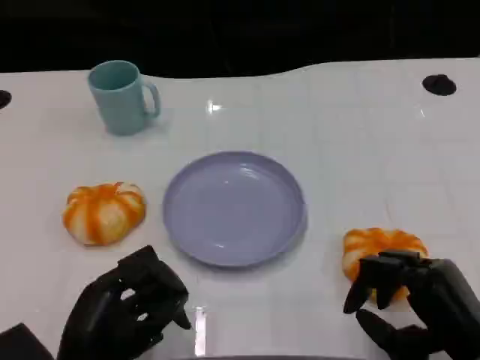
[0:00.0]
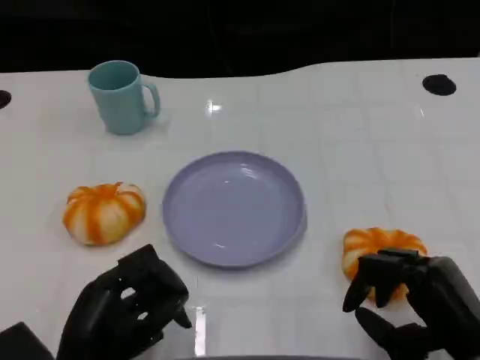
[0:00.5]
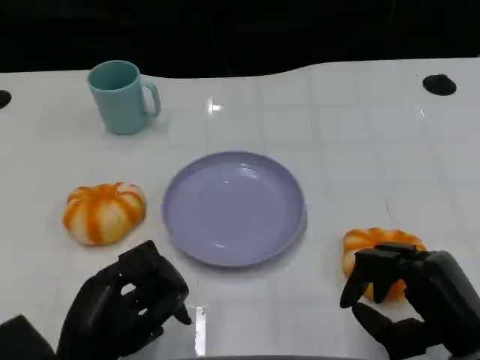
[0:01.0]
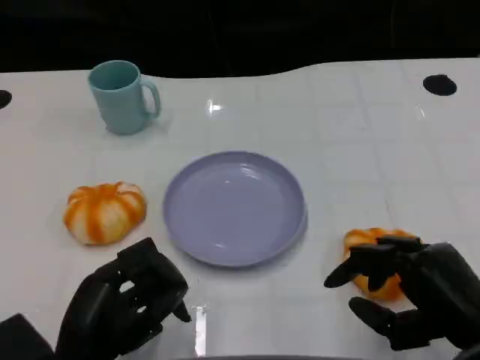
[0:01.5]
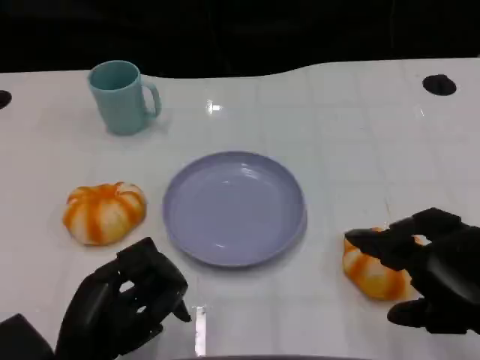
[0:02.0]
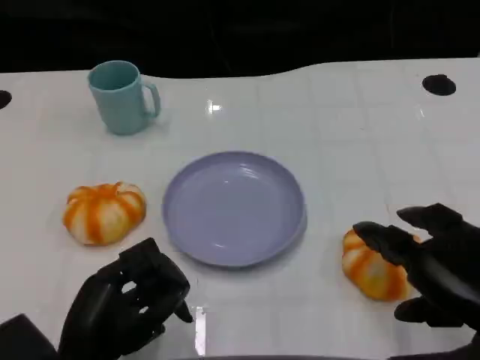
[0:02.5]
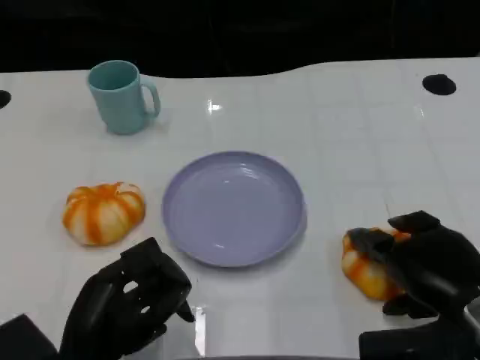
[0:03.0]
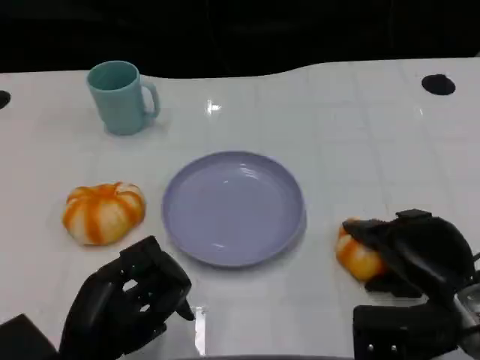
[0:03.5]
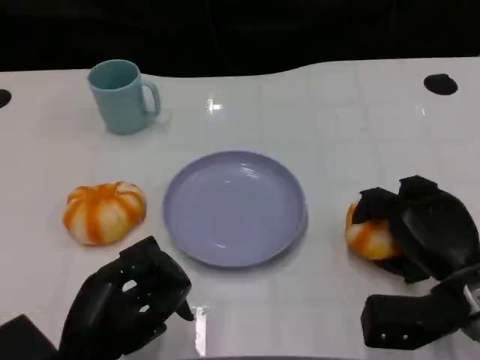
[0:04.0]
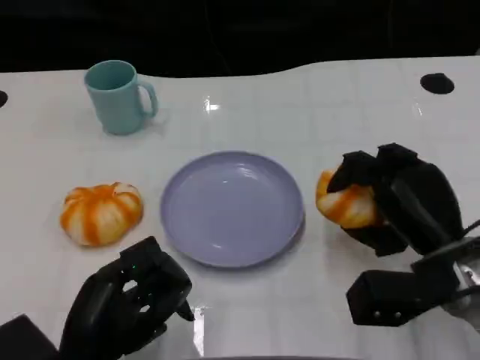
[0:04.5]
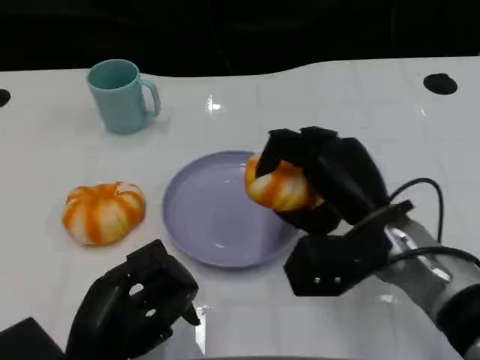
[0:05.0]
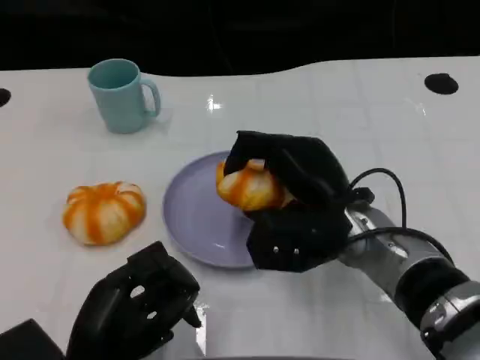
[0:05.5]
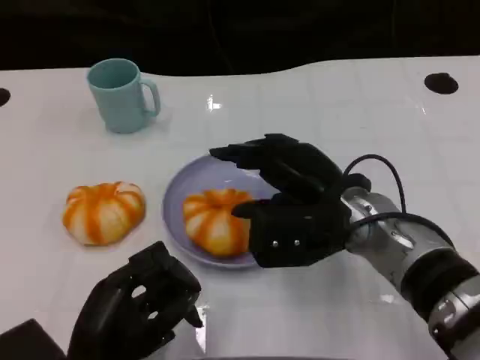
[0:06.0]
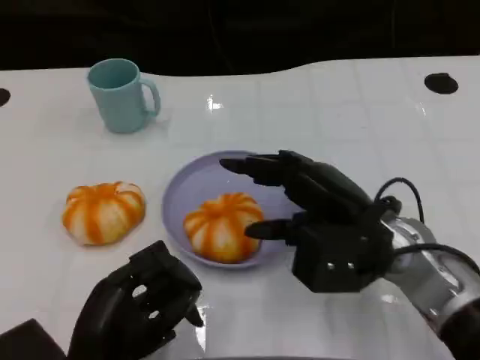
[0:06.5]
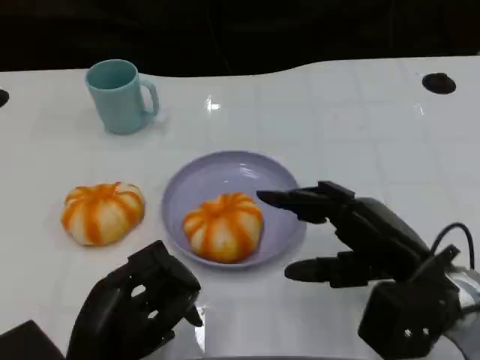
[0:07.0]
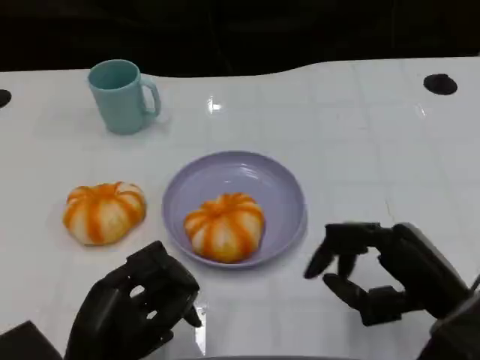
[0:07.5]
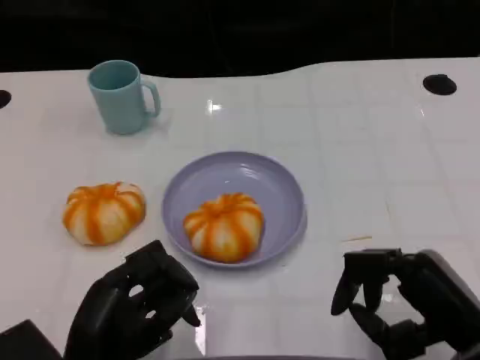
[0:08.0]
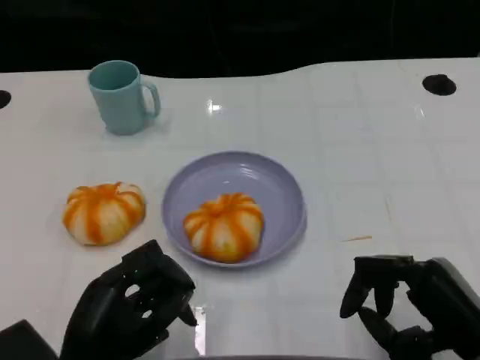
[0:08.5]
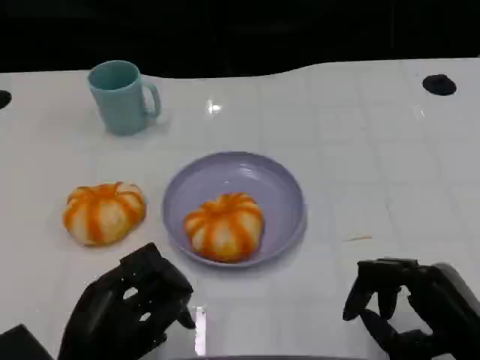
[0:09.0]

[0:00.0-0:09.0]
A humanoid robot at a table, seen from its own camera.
Task of the whole recording: Grasp the bread from the table and place it into the plate.
0:00.0 to 0:02.0: The right hand moves upward, approximately 10 cm.
0:02.0 to 0:04.5: The right hand shifts approximately 15 cm forward, downward and to the left.
0:04.5 to 0:07.0: The right hand goes to the left and returns, roughly 10 cm each way.
0:07.0 to 0:09.0: The right hand heads backward, covering approximately 5 cm.

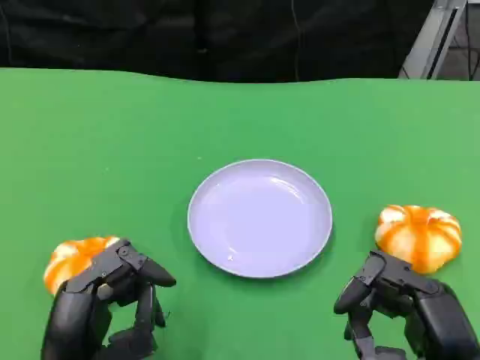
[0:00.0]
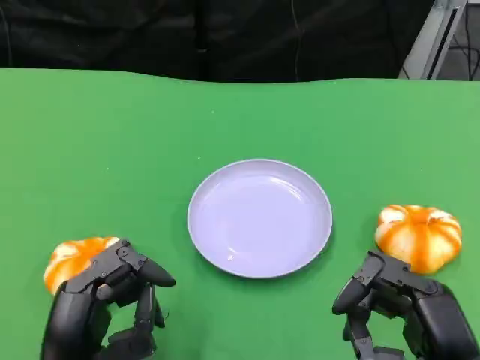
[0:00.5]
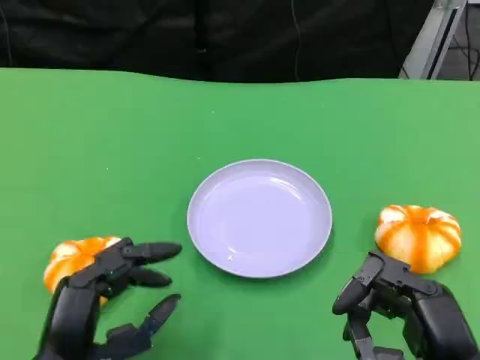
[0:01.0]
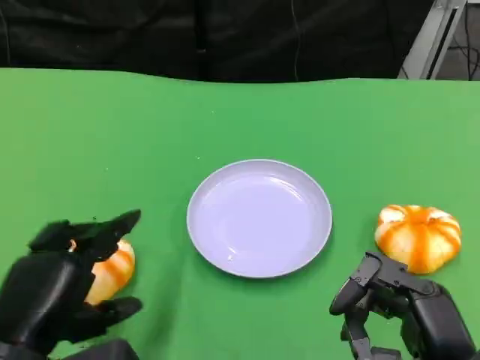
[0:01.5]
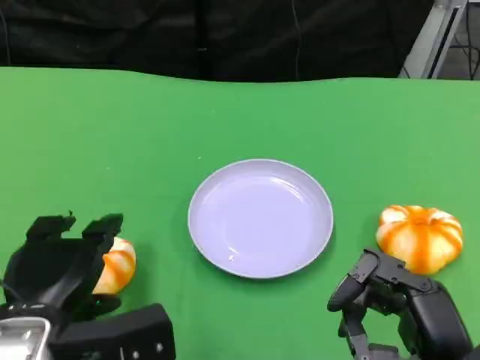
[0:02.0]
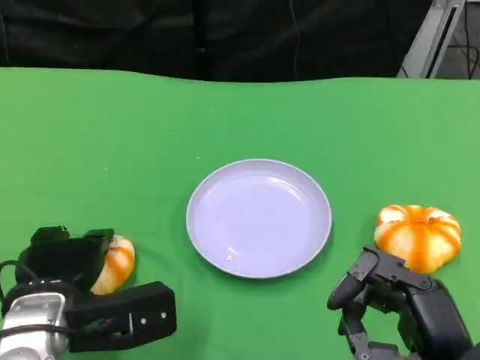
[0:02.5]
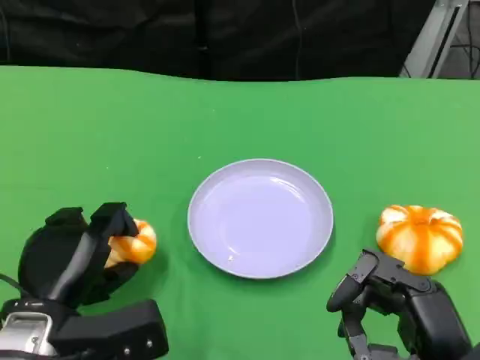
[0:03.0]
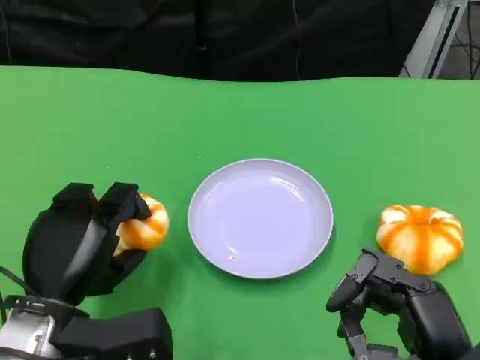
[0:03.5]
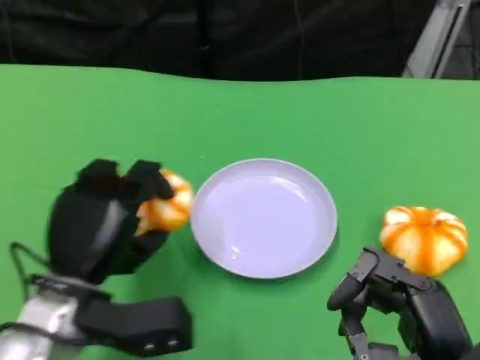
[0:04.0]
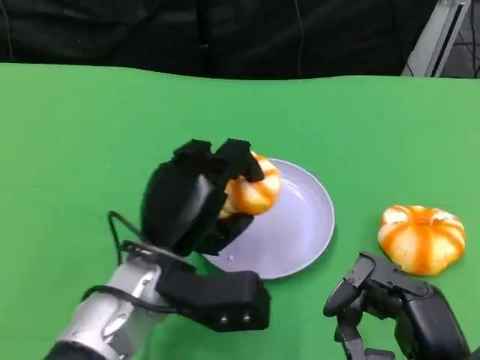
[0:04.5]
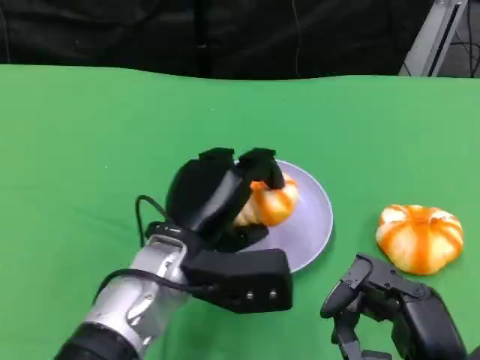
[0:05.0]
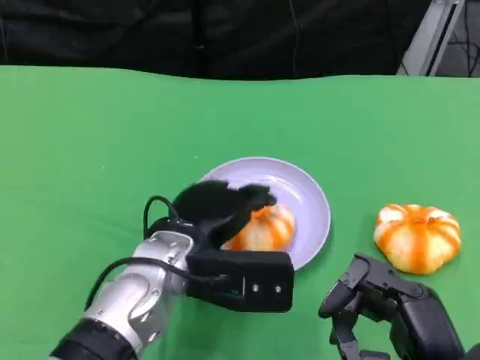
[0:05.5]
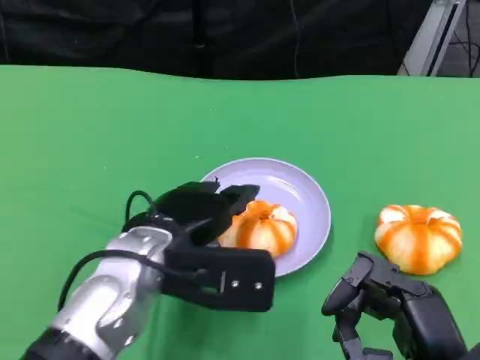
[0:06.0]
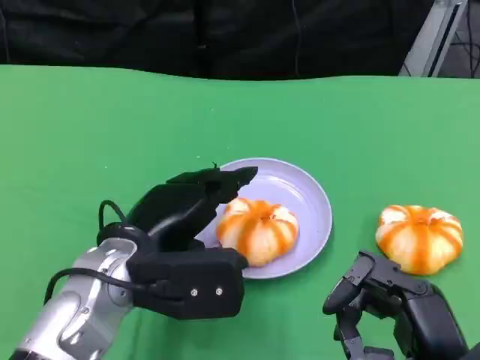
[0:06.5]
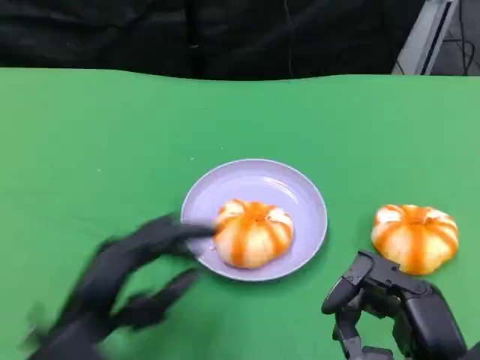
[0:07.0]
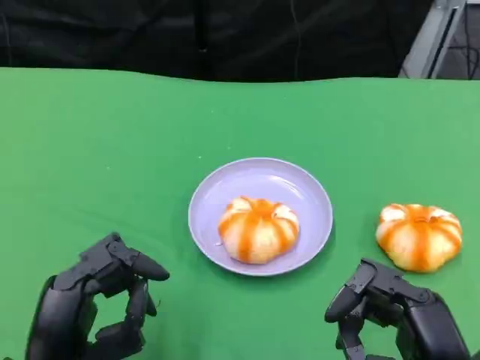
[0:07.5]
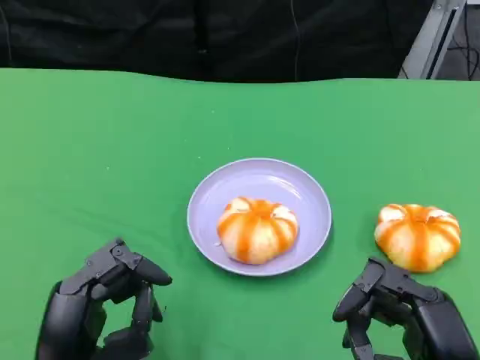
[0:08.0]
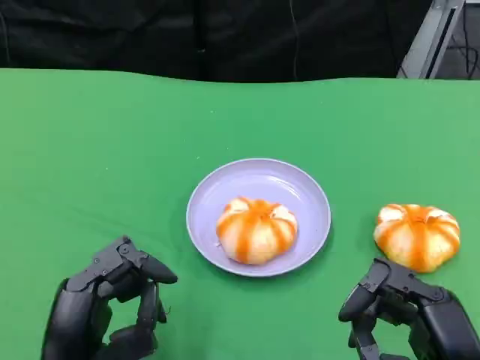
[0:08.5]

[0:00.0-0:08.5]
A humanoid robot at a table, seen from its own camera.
Task of the whole recording: Grasp the bread from the table and place it into the plate.
0:00.0 to 0:02.0: The left hand shifts by roughly 5 cm.
0:02.0 to 0:04.0: The left hand moves to the right, roughly 5 cm.
0:06.5 to 0:08.5: The left hand travels backward, downward and to the left by roughly 15 cm.

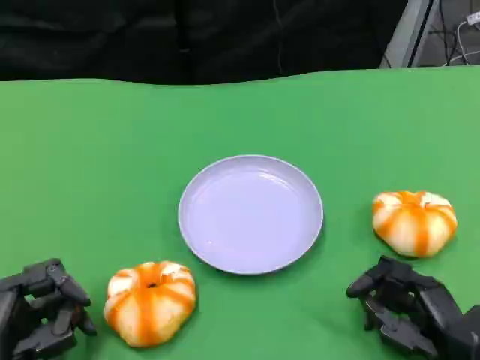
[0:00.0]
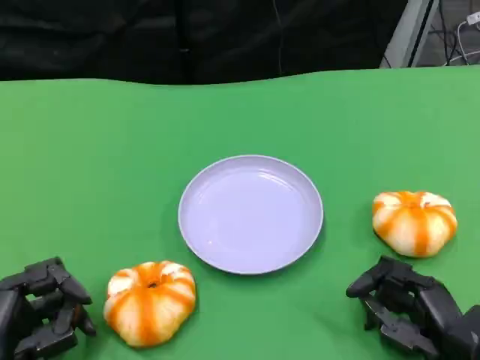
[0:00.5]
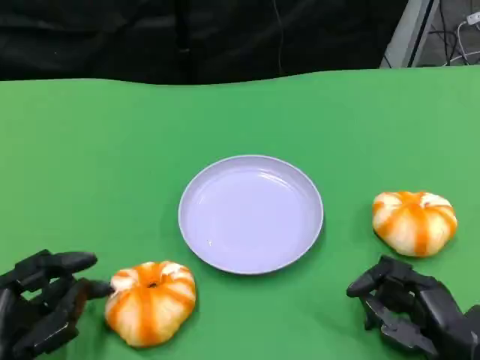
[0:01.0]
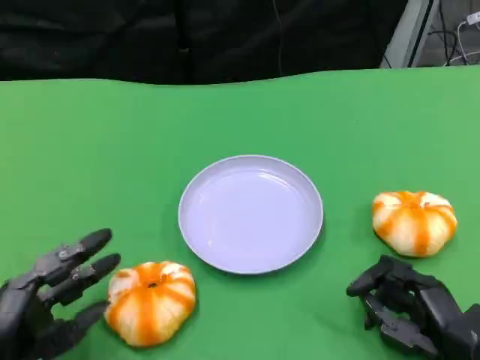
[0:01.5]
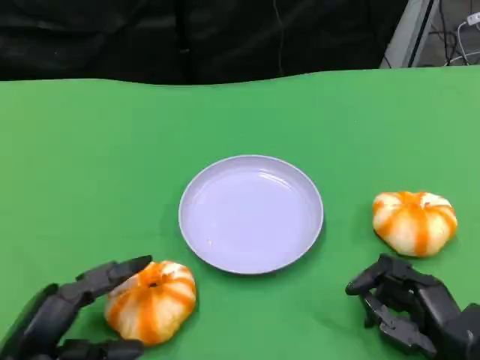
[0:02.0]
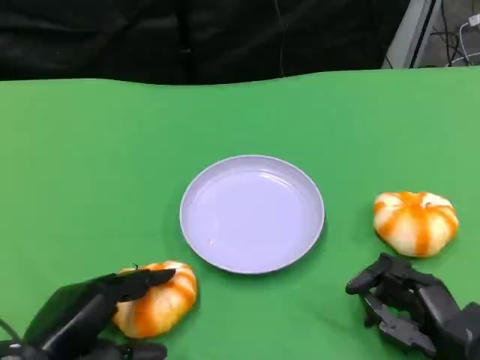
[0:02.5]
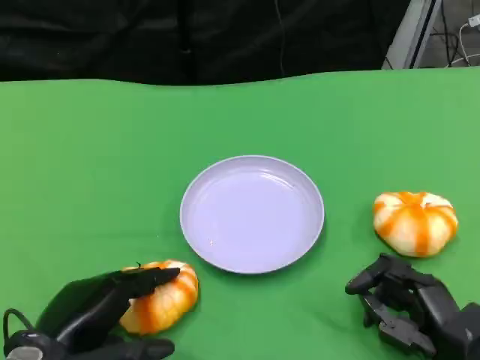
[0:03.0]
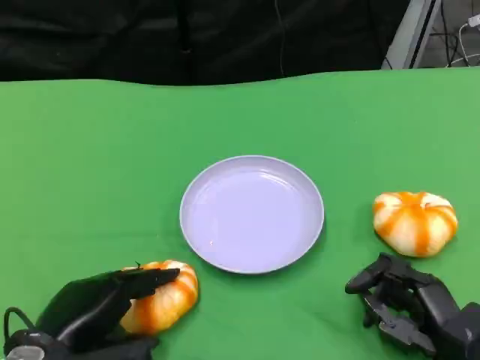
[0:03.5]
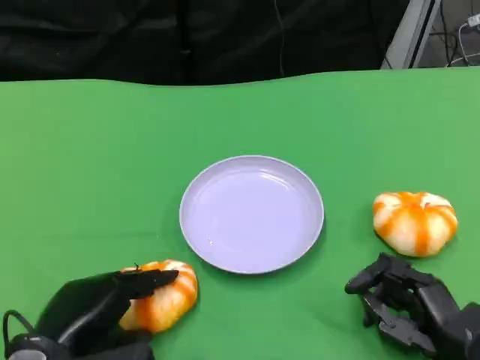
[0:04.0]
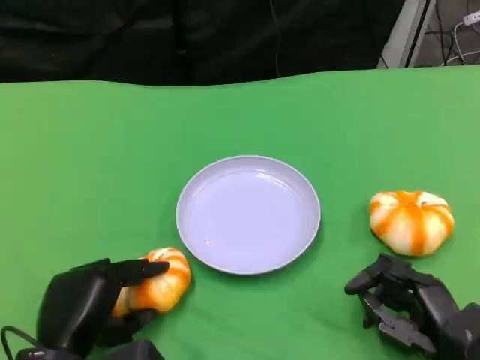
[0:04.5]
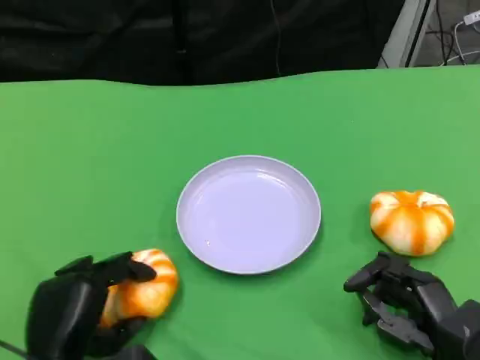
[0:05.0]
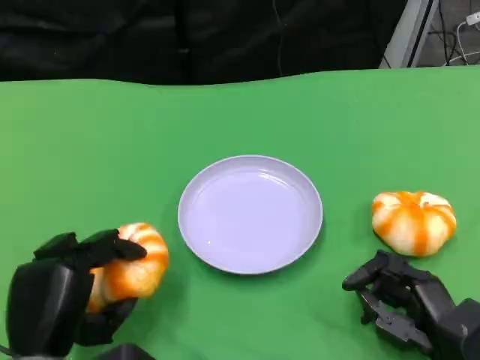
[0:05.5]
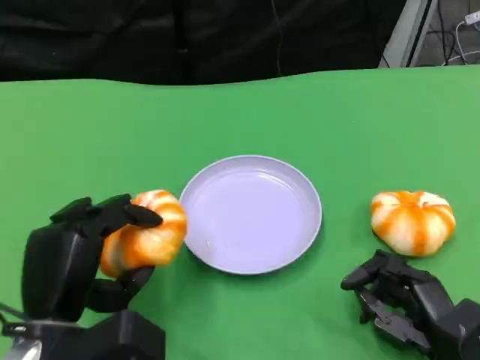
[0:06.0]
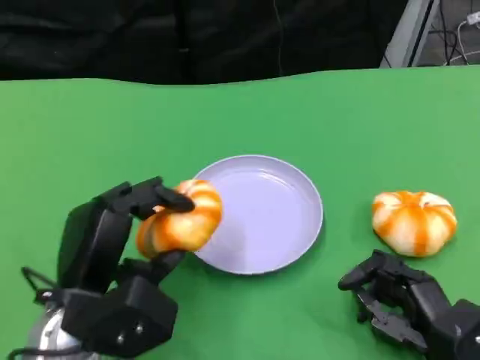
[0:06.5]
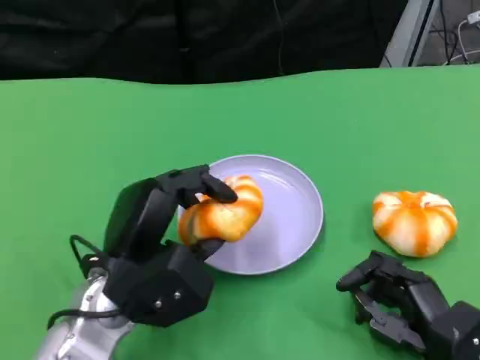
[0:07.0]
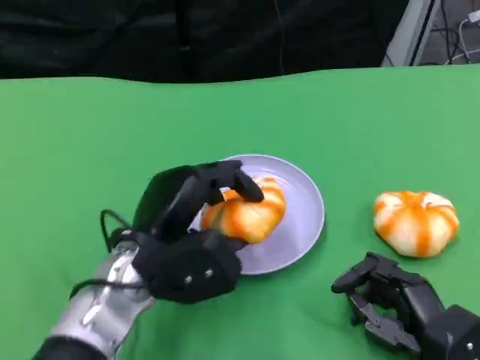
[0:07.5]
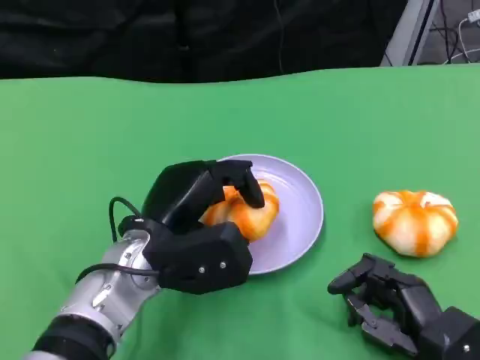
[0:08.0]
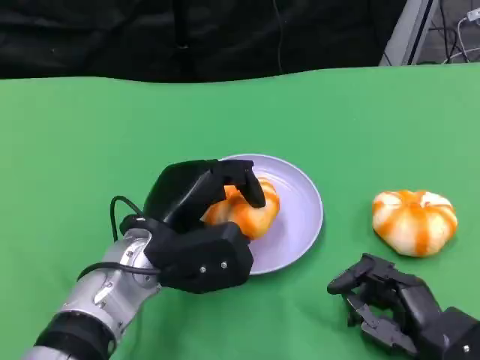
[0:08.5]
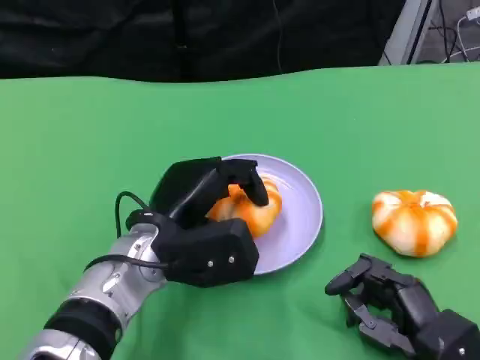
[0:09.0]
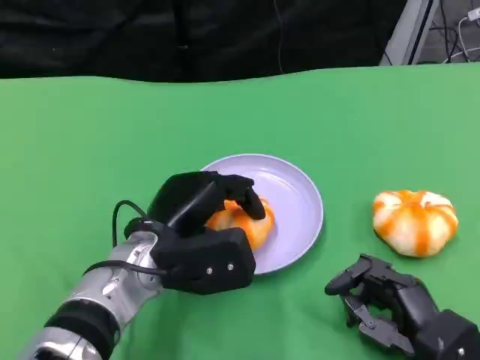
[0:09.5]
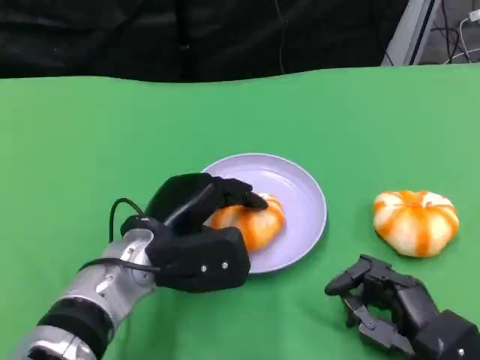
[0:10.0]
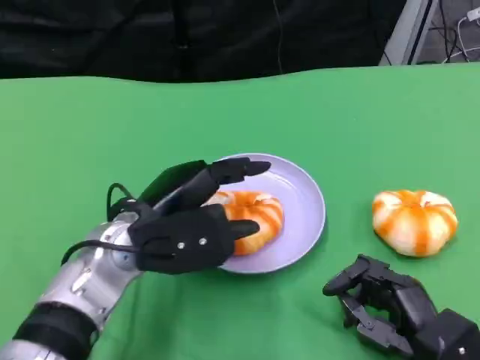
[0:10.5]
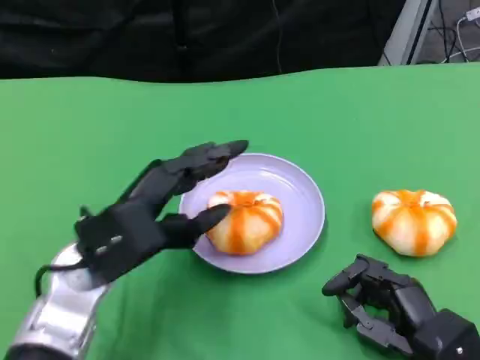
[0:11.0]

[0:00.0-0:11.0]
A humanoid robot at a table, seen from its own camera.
Task of the whole recording: Grasp the bread from the table and place it into the plate.
0:05.5 to 0:07.5: The left hand travels forward and to the right by roughly 15 cm.
0:07.5 to 0:09.0: The hands move only a little.
0:09.0 to 0:11.0: The left hand is displaced to the left by roughly 5 cm.
